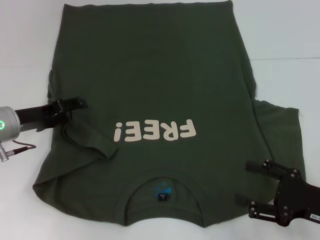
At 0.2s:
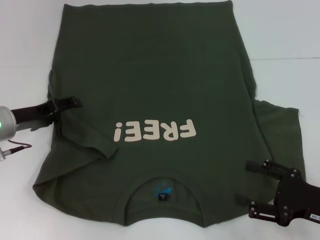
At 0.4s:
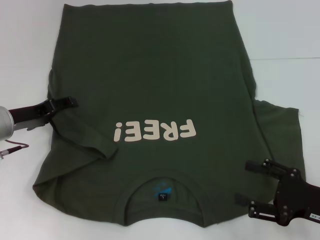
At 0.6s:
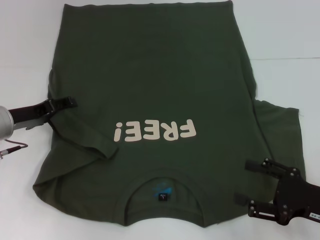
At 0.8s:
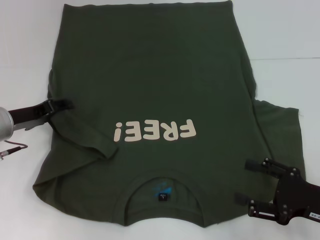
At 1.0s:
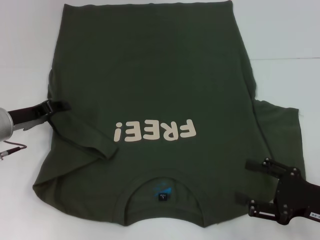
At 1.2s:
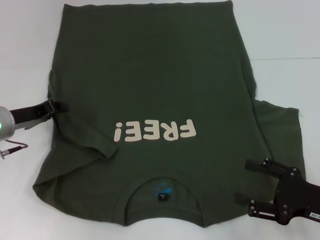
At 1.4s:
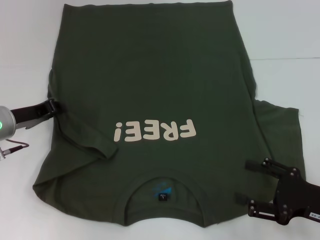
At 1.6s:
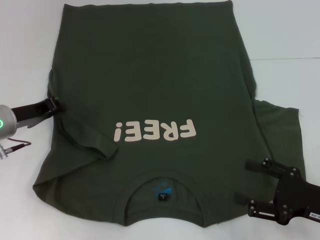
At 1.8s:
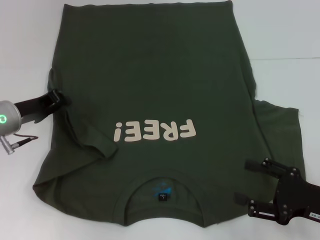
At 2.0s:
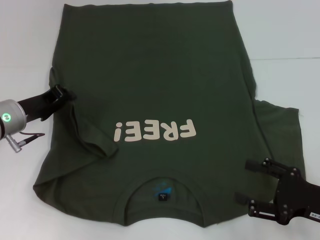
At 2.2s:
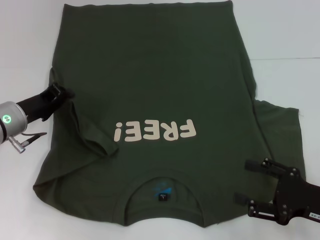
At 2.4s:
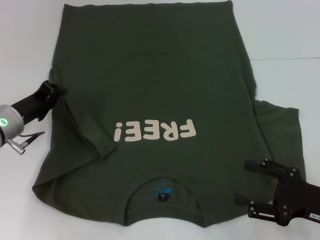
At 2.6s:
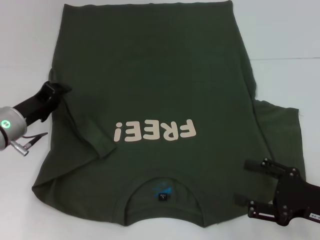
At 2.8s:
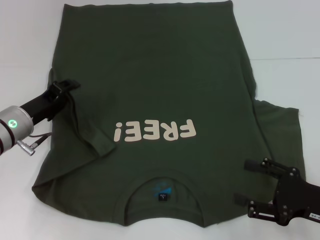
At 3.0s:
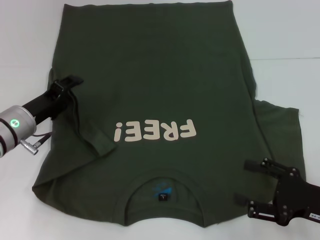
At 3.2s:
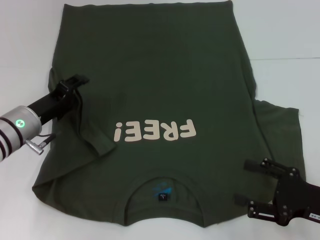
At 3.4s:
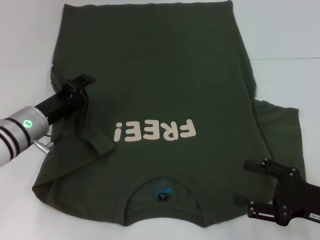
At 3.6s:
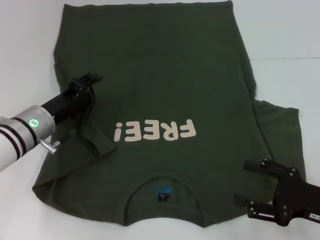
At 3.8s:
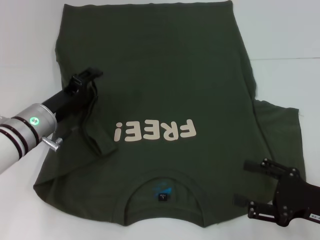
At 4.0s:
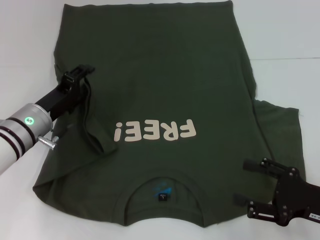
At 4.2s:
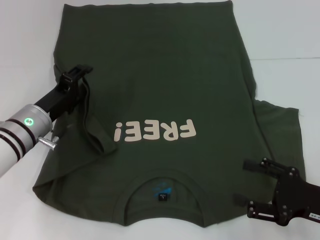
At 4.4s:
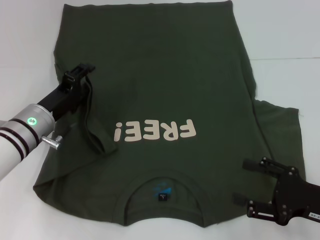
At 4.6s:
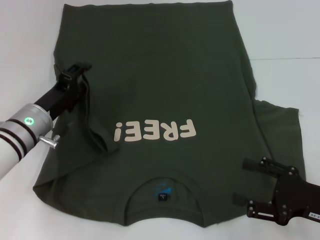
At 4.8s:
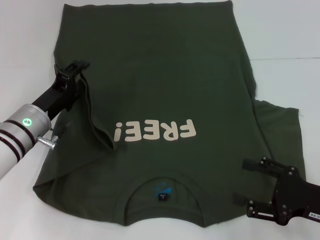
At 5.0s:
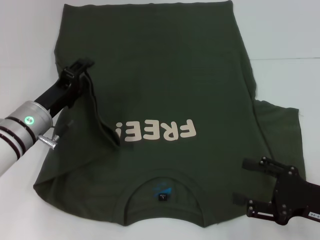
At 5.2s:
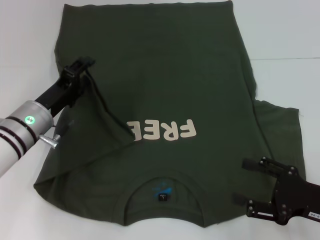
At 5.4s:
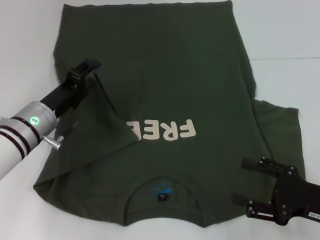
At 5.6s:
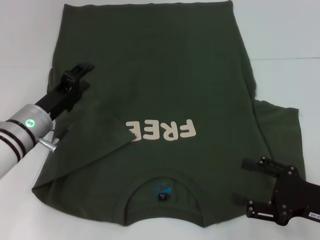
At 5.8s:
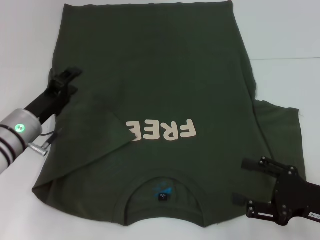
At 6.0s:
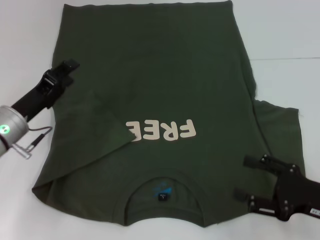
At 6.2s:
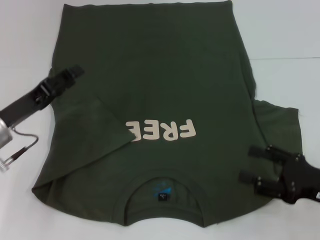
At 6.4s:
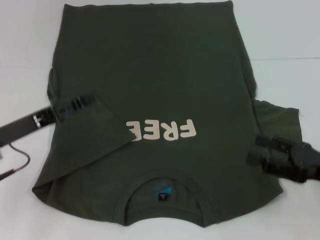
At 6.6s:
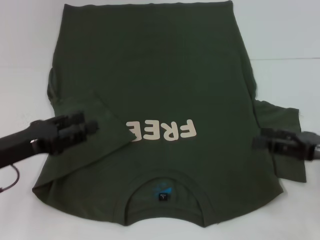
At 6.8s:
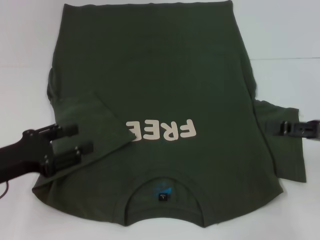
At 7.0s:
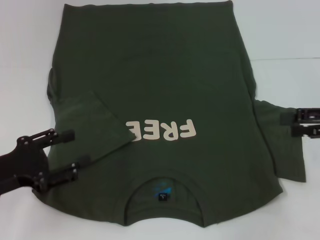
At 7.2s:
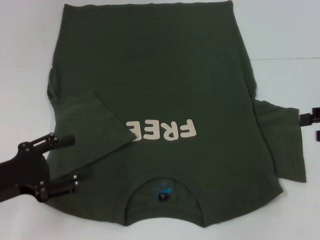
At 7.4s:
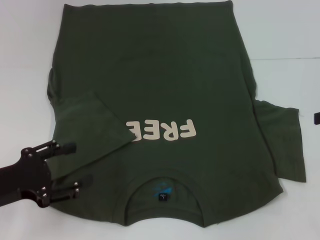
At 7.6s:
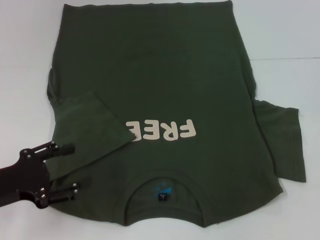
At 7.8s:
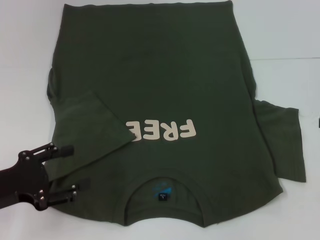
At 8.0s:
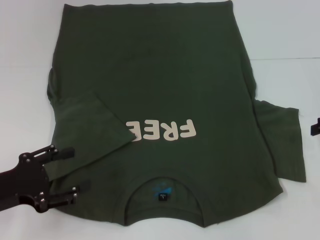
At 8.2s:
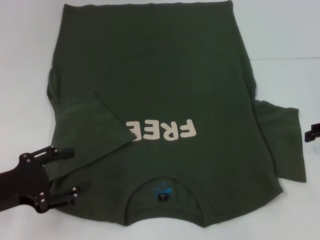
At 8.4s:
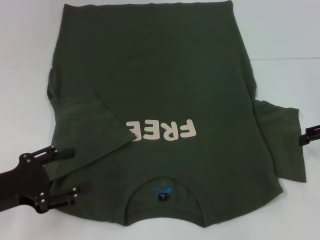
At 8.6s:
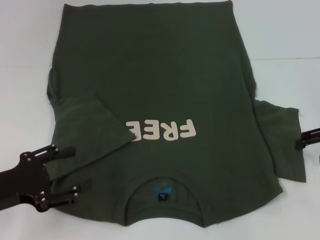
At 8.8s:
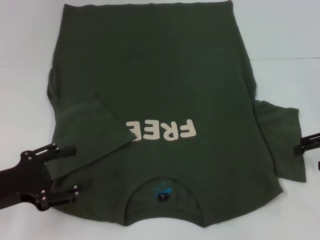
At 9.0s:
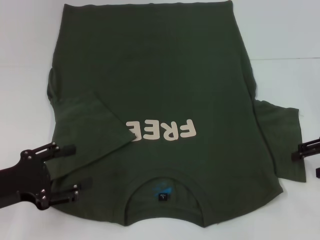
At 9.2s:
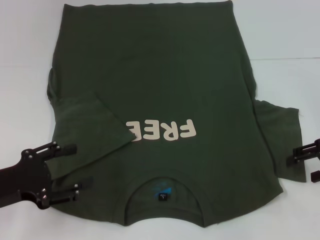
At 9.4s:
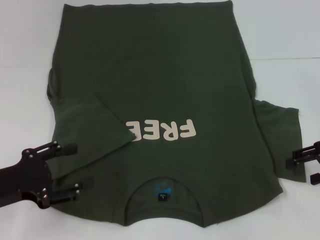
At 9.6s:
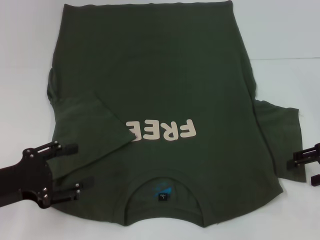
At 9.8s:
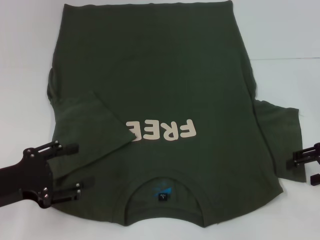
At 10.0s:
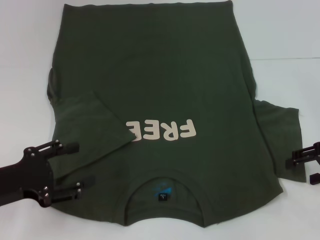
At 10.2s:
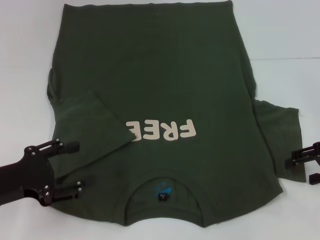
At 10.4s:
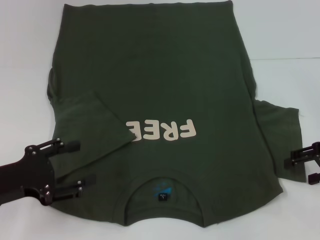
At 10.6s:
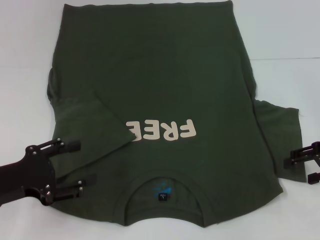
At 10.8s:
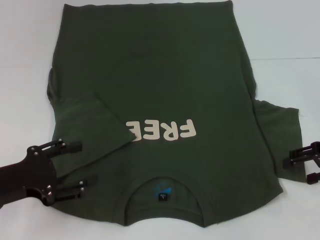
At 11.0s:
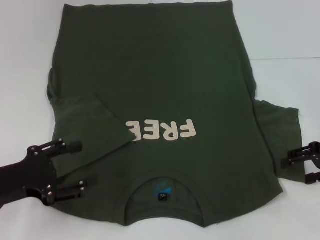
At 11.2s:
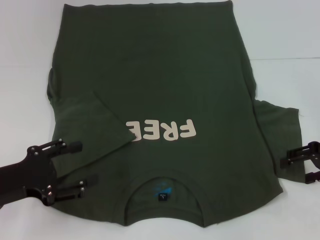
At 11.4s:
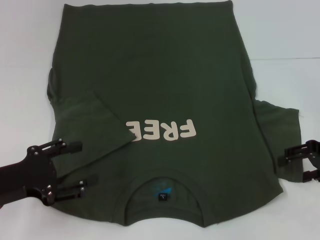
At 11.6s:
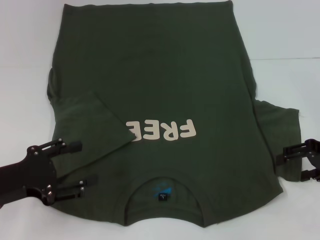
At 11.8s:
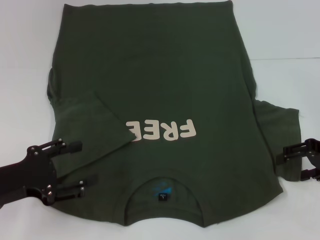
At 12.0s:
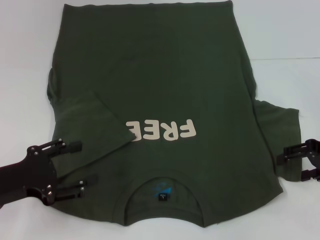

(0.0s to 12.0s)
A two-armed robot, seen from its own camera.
Step, 0.0s - 5.4s: Fold the bottom left sleeve with your left hand.
0.0s - 1.6s: The left gripper closes.
3.0s - 6.0s: The grippers make only small movements.
6.0s - 7.6s: The right gripper goes approximately 20 cm upward, forward and to the right, while the left gripper is displaced backward by roughly 10 cm.
7.6s - 9.0s: The right gripper travels downward by roughly 5 cm.
9.0s - 10.4s: The grippers make only small movements.
10.4s - 12.0s: Both grippers stay put.

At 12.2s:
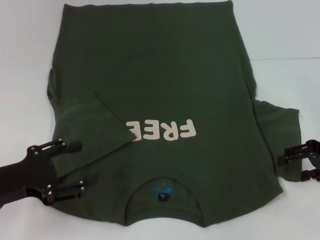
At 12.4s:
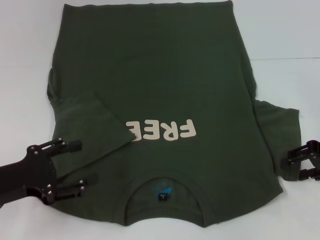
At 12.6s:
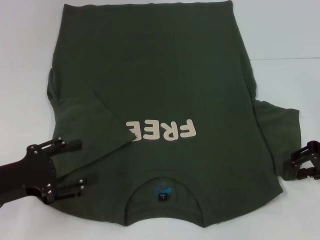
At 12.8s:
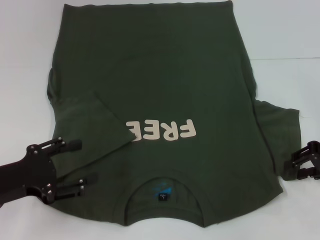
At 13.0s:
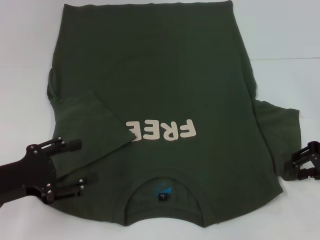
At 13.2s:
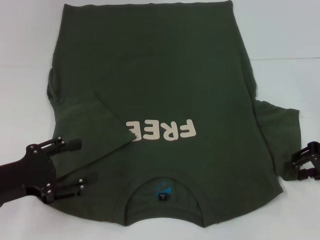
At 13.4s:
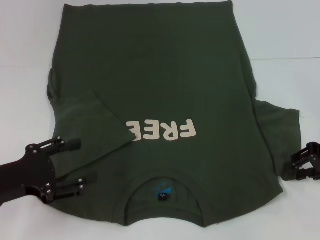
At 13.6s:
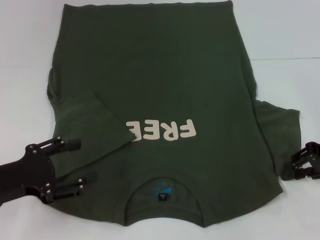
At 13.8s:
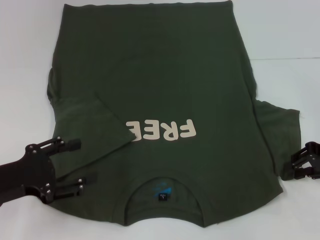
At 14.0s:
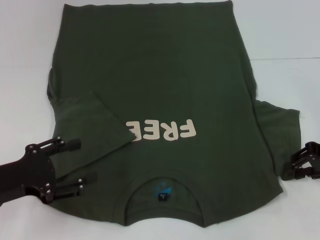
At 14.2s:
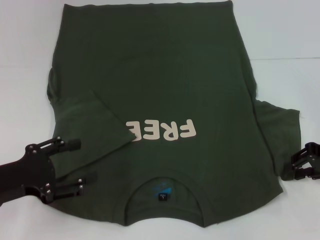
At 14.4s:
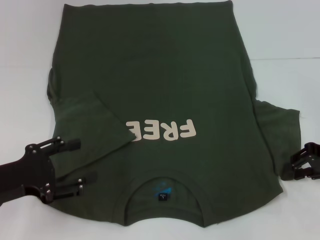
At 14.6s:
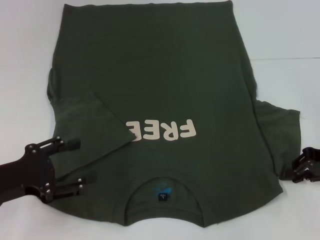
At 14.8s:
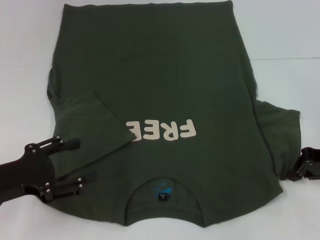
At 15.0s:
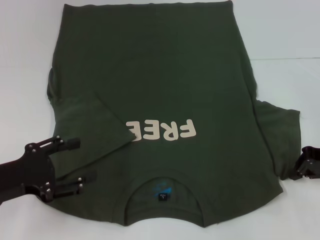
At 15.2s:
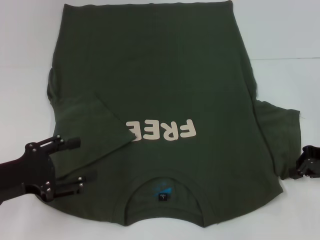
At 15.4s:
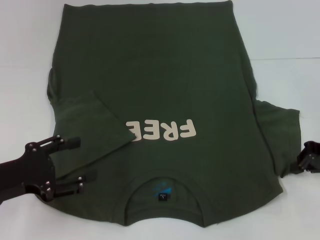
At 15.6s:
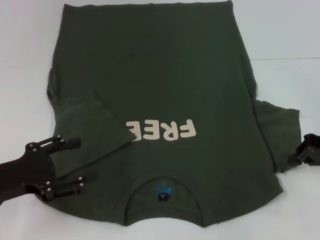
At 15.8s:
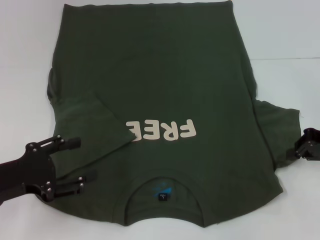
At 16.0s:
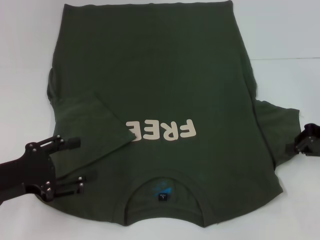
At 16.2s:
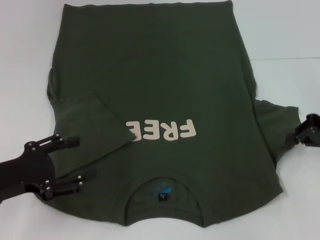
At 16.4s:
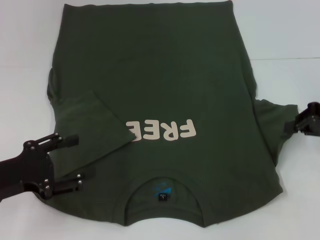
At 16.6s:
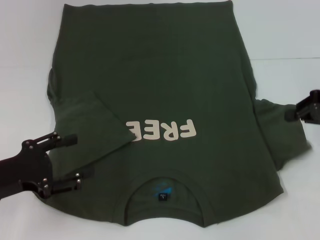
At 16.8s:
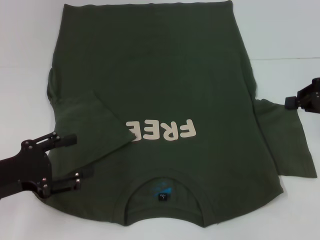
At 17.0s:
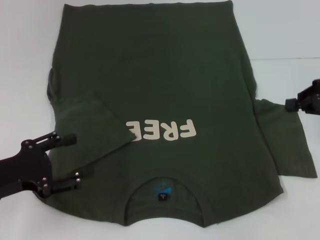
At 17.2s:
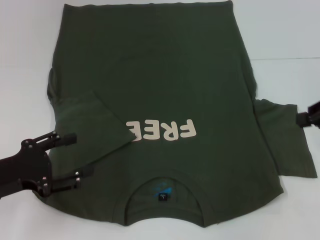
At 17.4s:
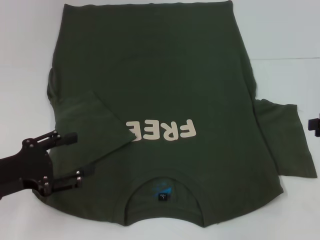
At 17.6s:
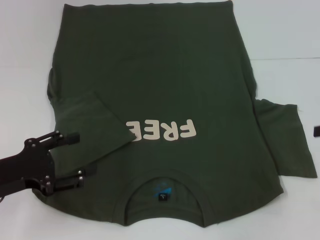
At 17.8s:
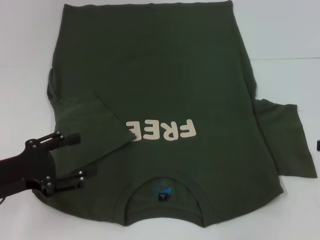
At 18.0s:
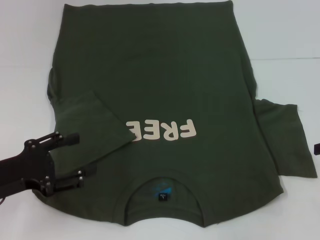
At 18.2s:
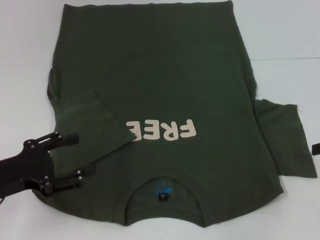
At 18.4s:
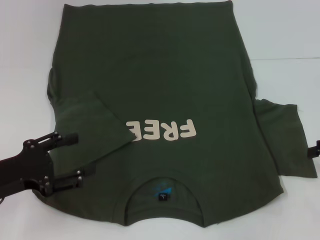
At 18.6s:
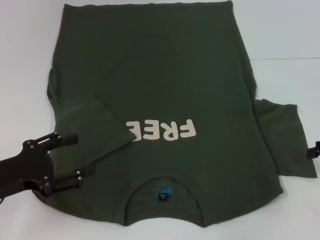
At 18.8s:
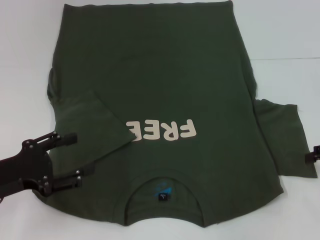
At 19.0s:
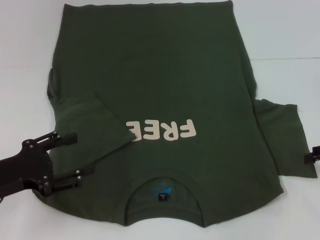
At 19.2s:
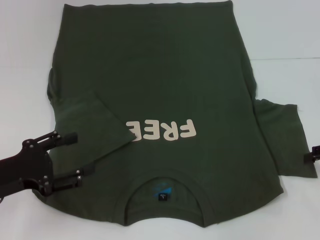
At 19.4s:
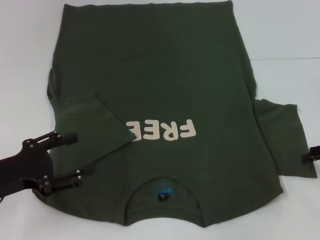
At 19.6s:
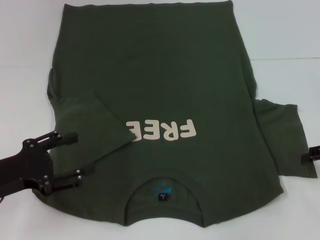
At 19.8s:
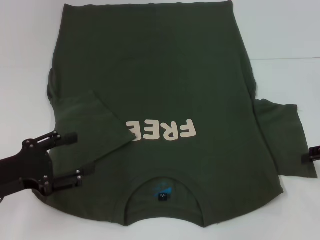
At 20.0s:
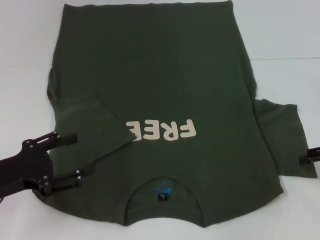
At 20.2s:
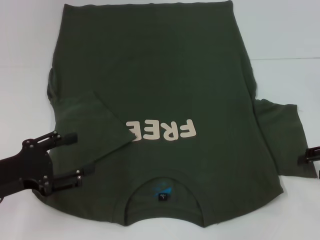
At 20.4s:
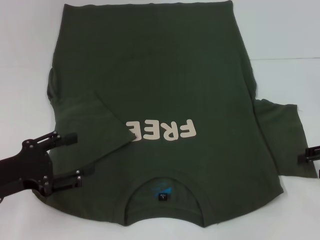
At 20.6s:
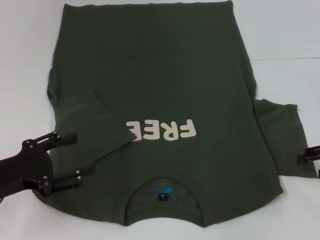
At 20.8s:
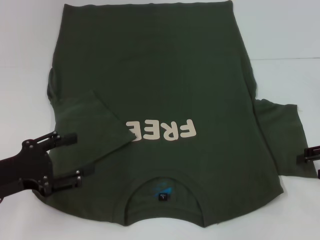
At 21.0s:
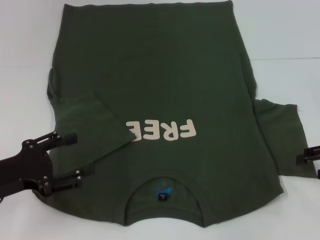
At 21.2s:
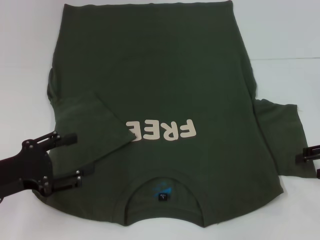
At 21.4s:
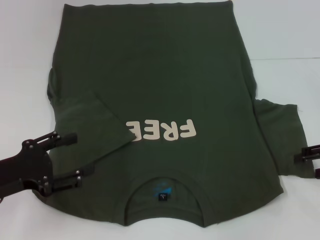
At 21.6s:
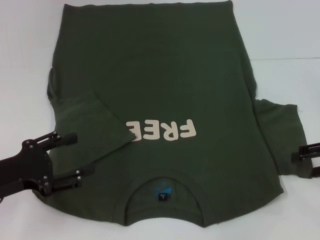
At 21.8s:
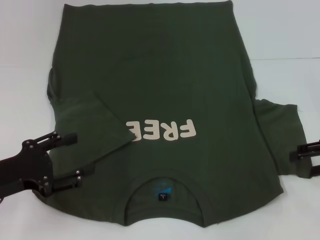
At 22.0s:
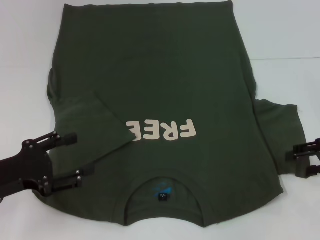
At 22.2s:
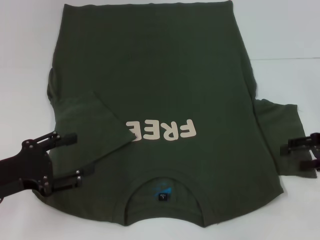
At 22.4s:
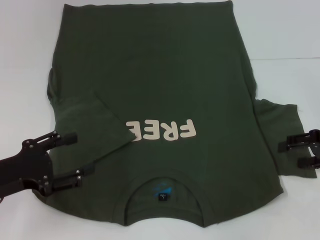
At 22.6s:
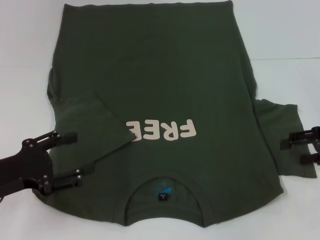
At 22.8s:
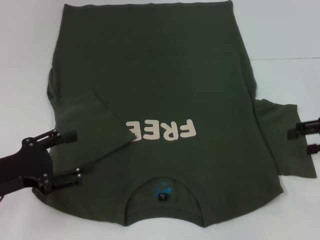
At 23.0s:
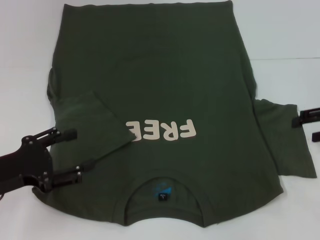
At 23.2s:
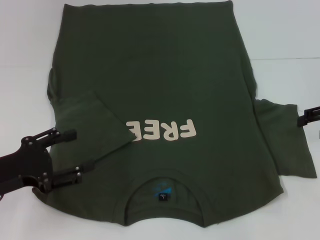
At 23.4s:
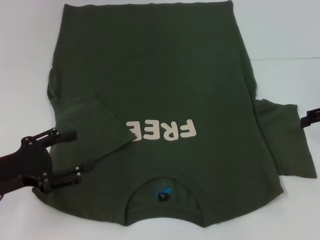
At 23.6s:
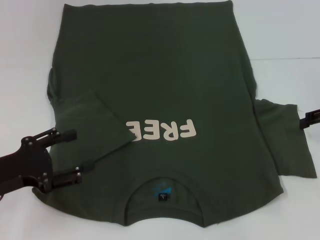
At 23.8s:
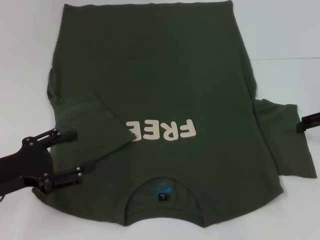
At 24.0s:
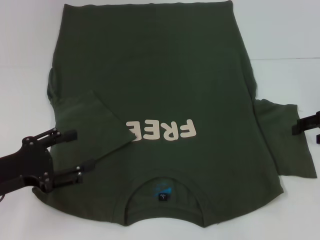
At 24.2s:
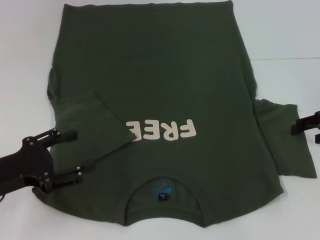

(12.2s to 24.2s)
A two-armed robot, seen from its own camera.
12.2s - 13.8s: The right gripper closes.
15.2s - 16.6s: The right gripper moves about 5 cm.
16.6s - 18.2s: The right gripper shifts by some 5 cm, and opens up.
19.8s - 21.2s: The two grippers keep their place.
21.2s - 24.2s: The grippers move only a little.
